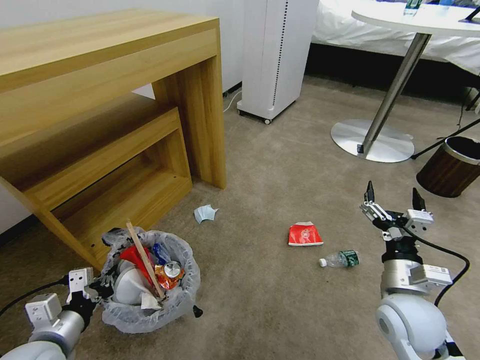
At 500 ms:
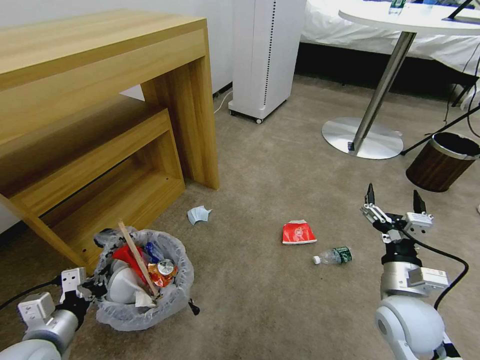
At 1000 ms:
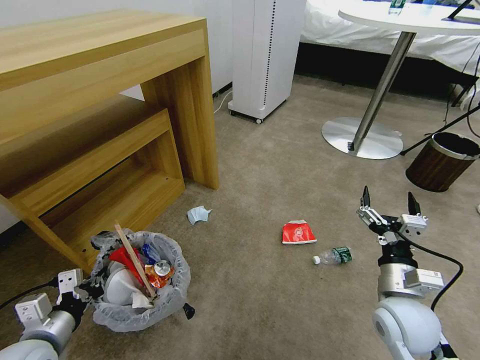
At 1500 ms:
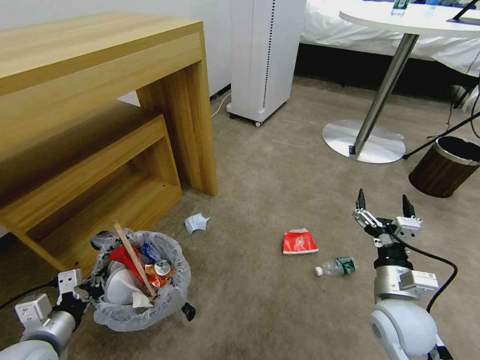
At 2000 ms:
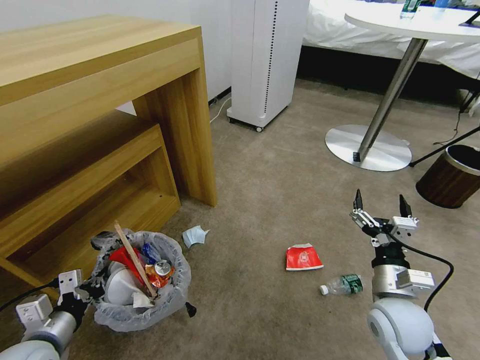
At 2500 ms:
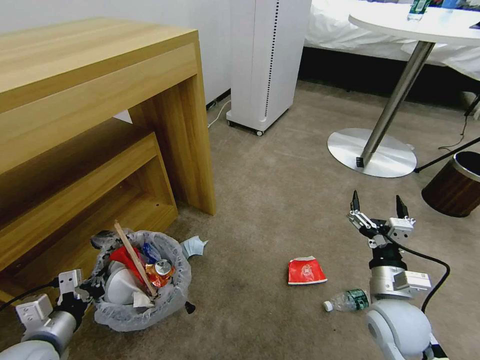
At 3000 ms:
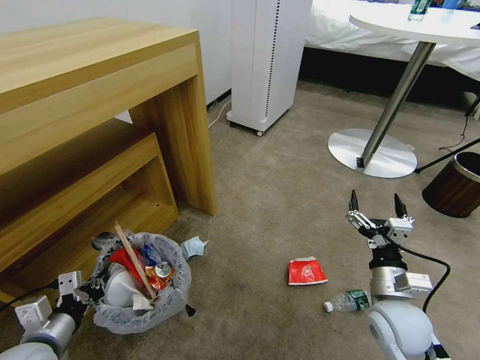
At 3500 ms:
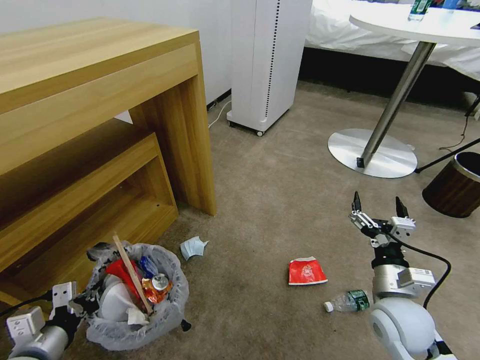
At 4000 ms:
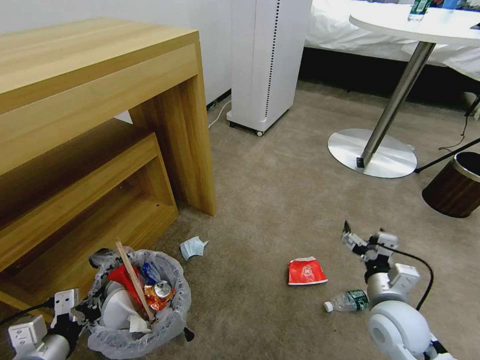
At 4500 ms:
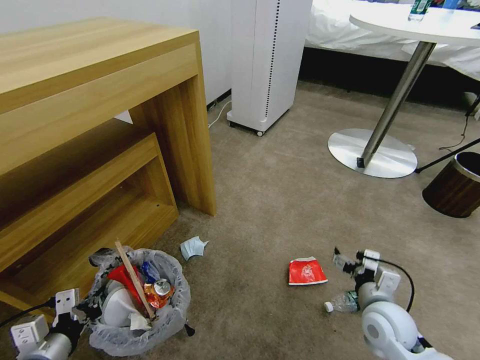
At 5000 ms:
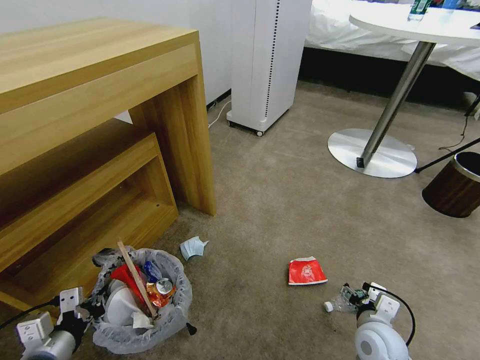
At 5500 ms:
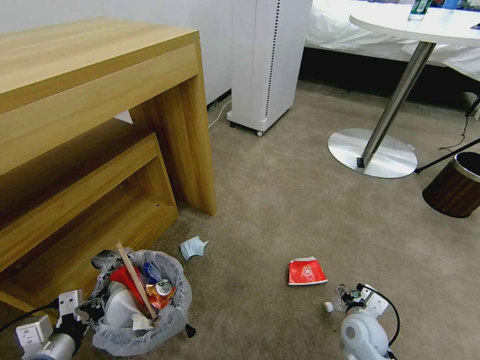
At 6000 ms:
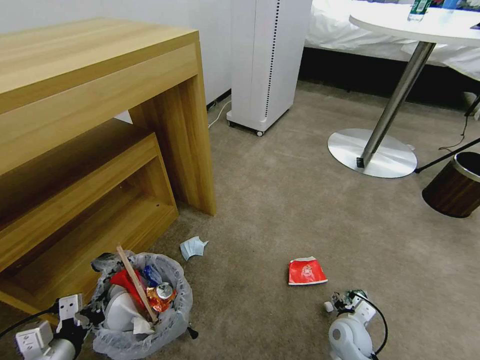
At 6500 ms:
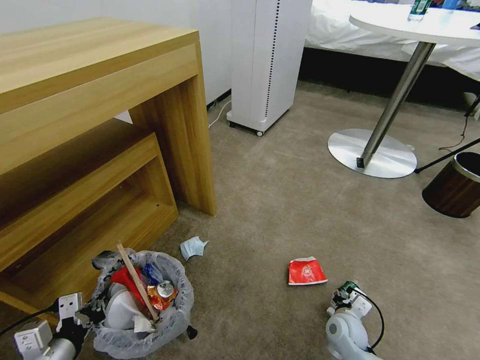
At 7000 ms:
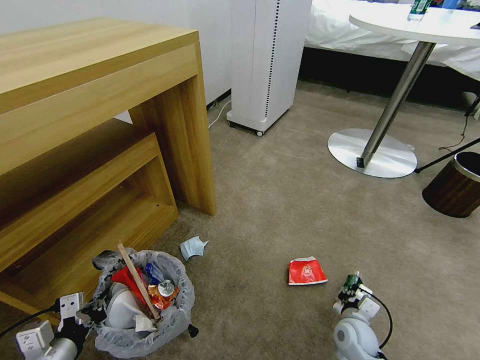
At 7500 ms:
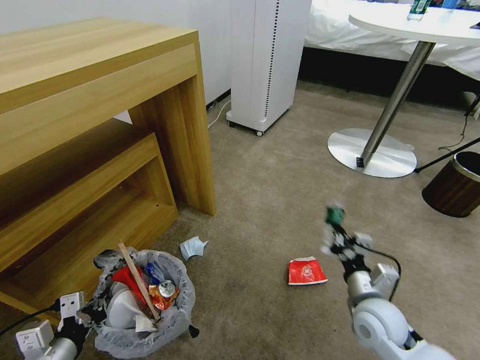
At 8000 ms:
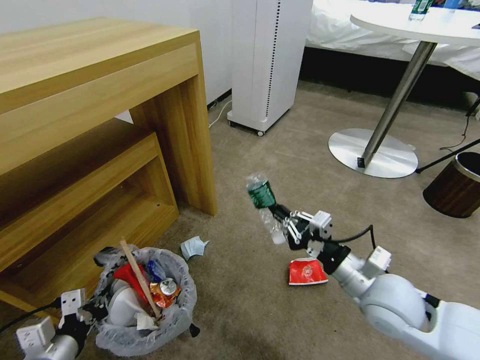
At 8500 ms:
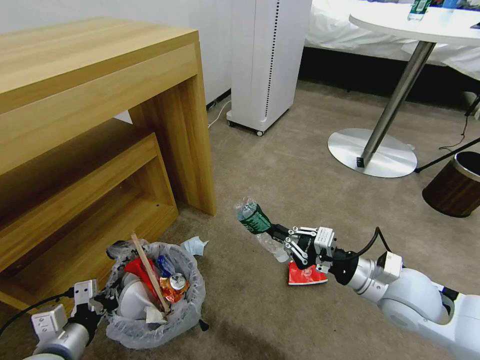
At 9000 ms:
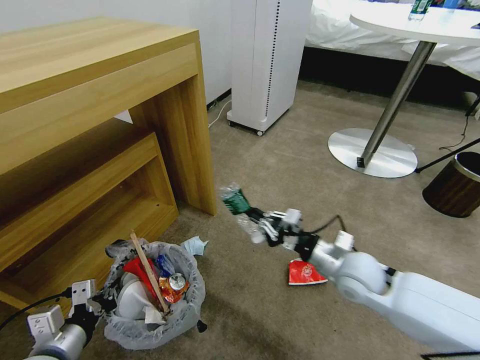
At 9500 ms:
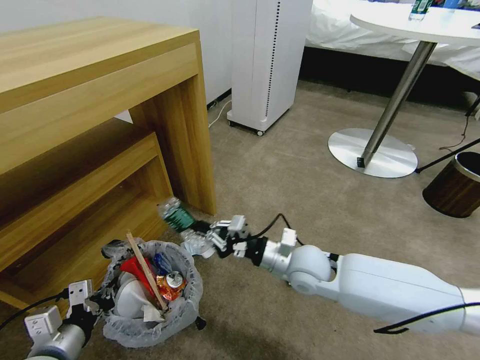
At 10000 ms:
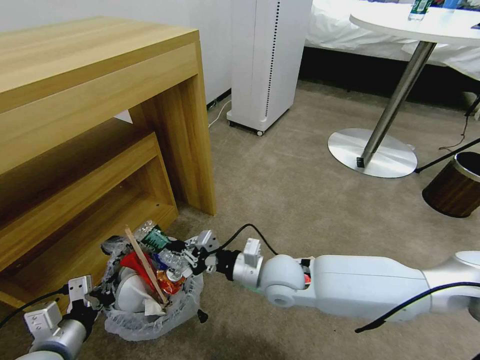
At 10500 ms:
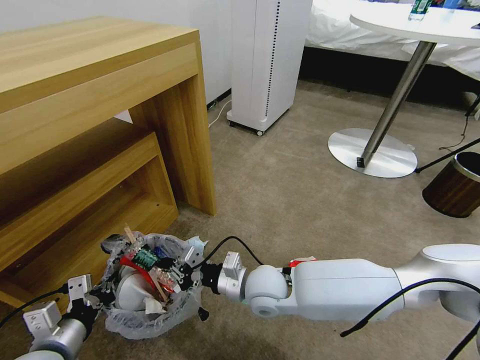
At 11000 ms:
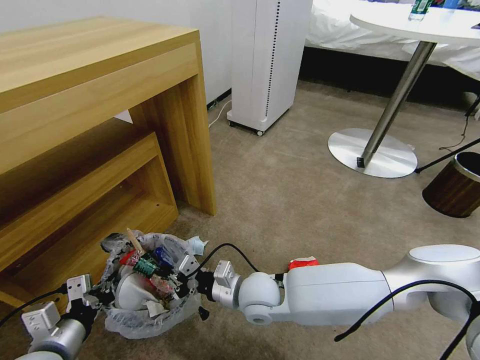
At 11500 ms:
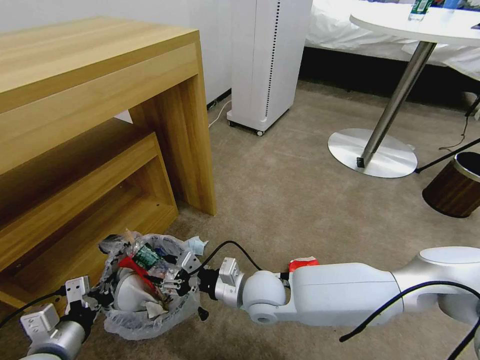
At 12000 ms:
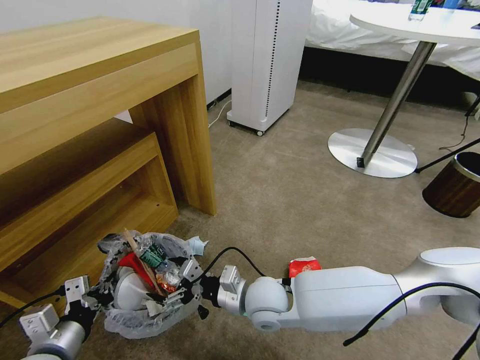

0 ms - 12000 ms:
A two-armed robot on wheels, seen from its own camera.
Task of the whole recording: Pick up the trash bin and place the garbage on the floor into it.
4000 ms - 6000 ms: The right gripper heads downward, covering some 15 cm.
6000 ms - 8000 ms: The right gripper is displaced upward by approximately 25 cm, and closes its fingers.
8000 ms - 10000 ms: The right gripper shifts about 15 cm to the left.
10000 ms - 12000 ms: The right gripper changes place by some 5 cm, and opens its fingers.

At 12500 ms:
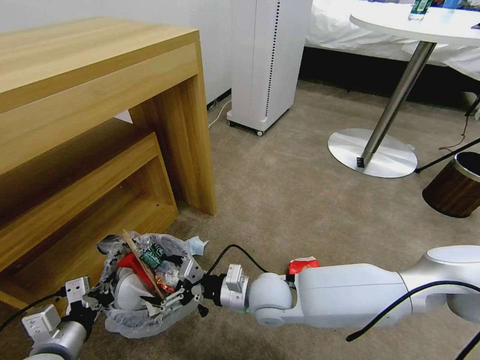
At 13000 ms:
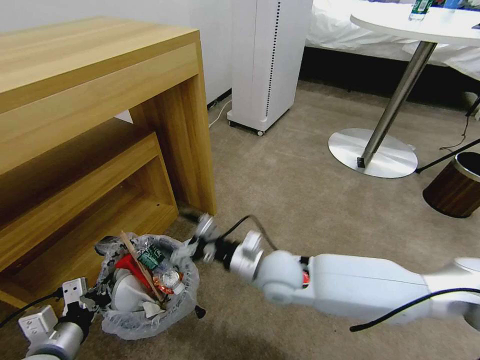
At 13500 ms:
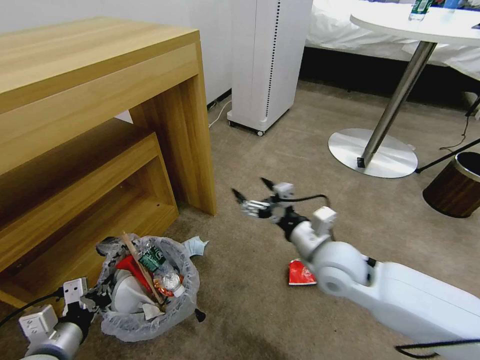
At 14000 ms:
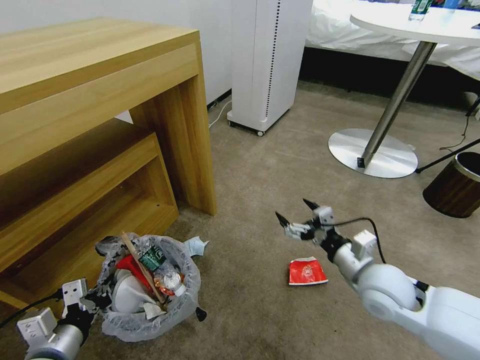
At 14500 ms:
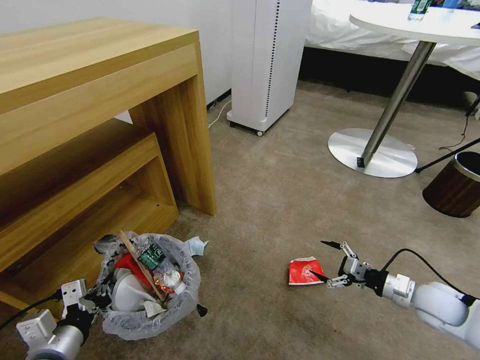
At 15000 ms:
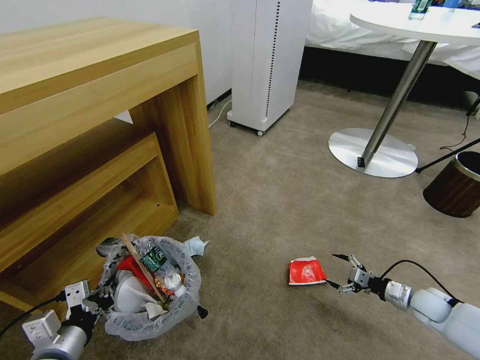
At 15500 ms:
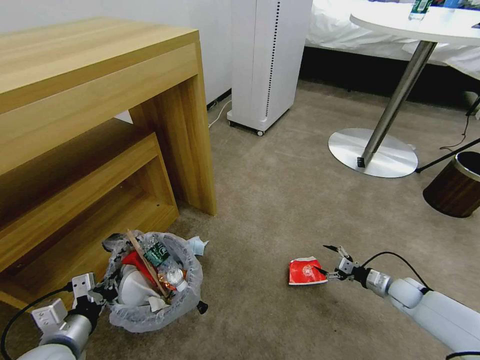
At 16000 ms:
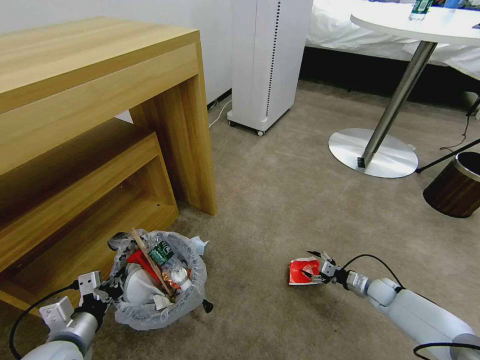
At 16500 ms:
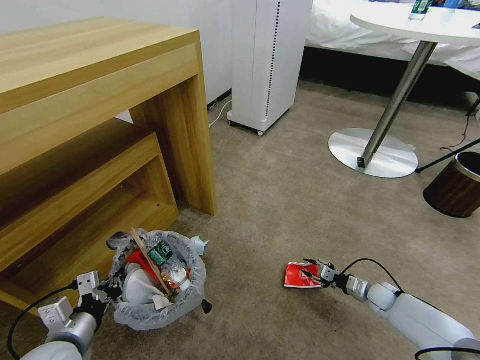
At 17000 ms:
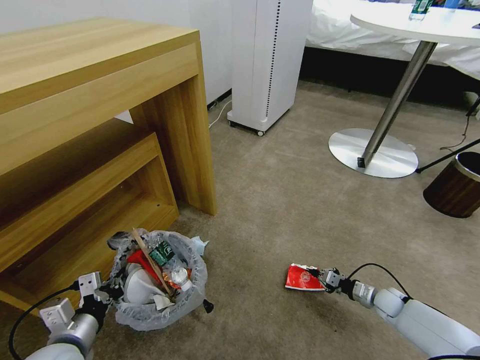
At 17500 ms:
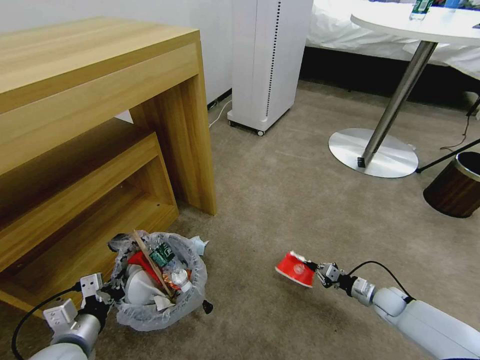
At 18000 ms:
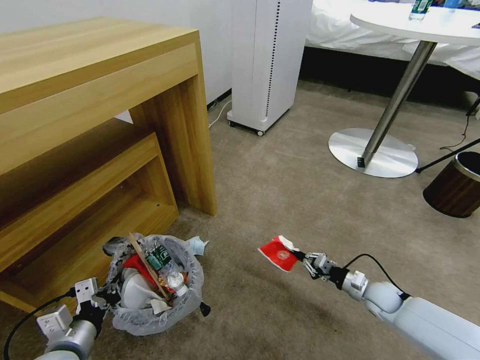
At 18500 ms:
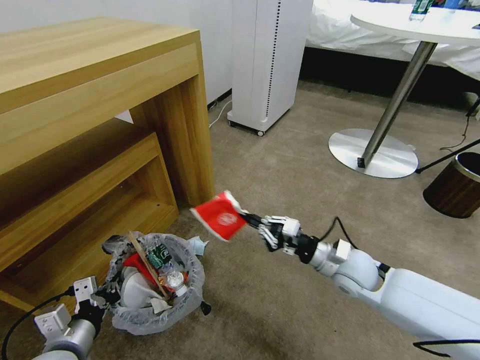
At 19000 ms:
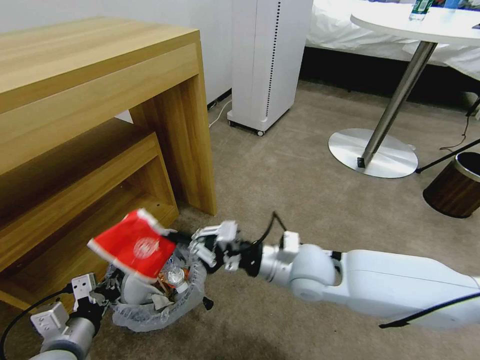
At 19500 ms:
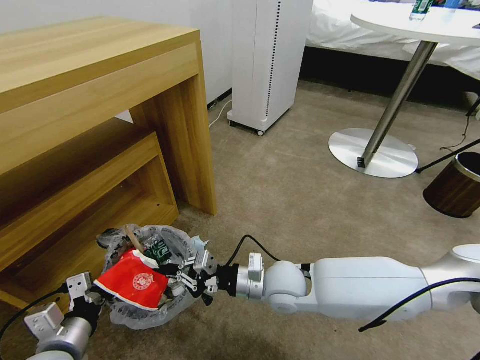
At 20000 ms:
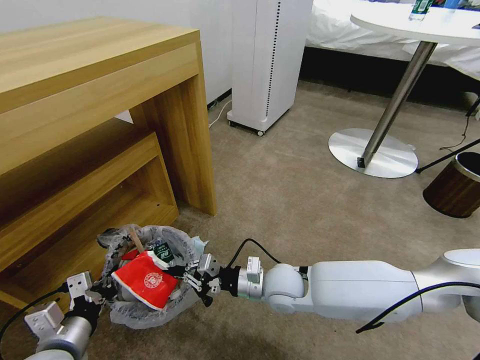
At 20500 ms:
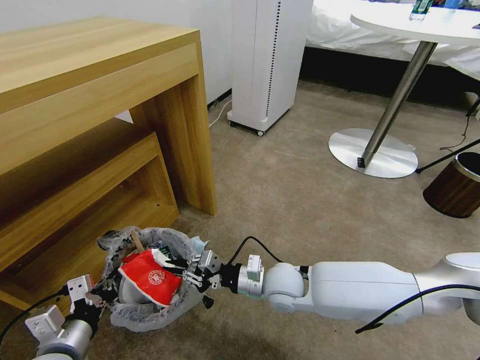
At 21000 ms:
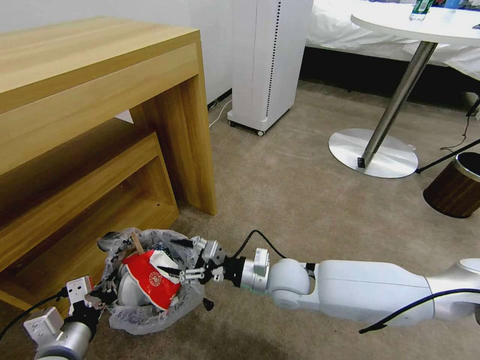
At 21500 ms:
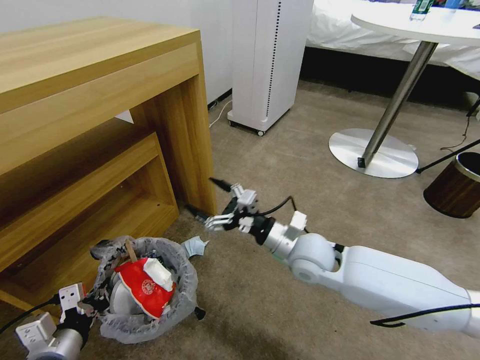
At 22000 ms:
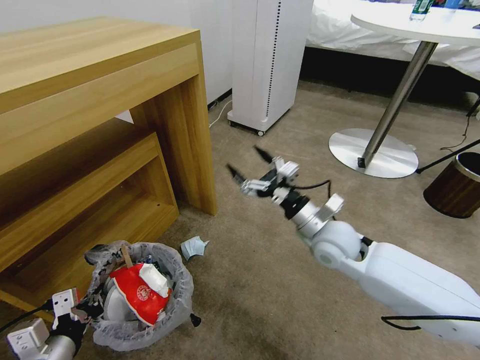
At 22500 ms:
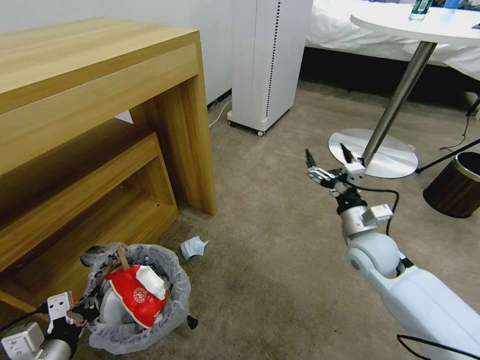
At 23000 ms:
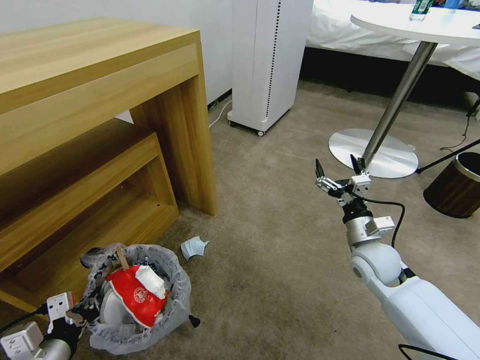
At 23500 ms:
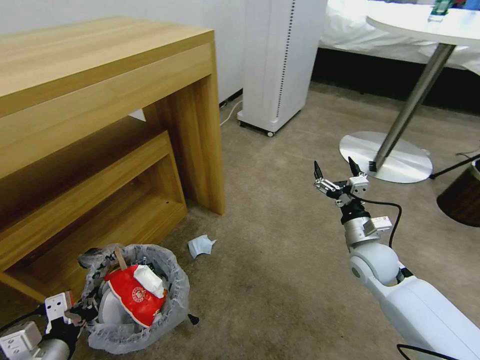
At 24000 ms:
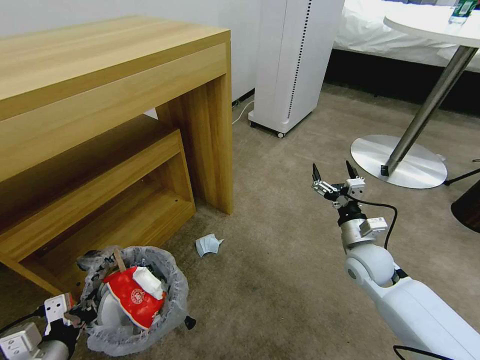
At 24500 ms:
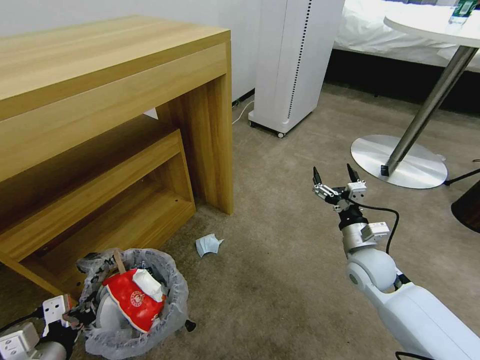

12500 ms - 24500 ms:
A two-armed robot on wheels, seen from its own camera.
Task of the whole recording: Pick up the trash bin and place the garbage on the floor into it.
12500 ms - 14500 ms: The right gripper heads to the right, covering some 40 cm.
14500 ms - 16500 ms: The right gripper is displaced downward and forward by roughly 20 cm, and closes.
16500 ms - 18500 ms: The right gripper shifts some 30 cm upward and to the left, and closes up.
18500 ms - 20500 ms: The right gripper heads to the left, covering about 15 cm.
20500 ms - 22500 ms: The right gripper shifts some 20 cm to the right, and opens.

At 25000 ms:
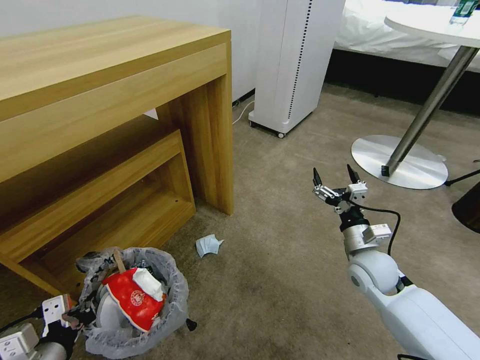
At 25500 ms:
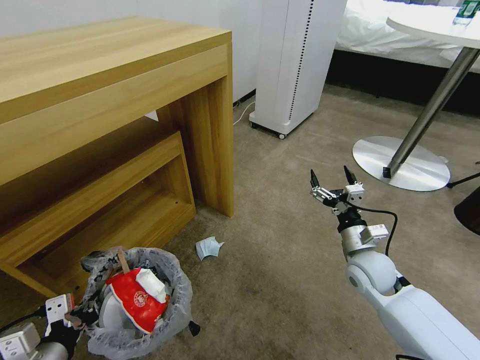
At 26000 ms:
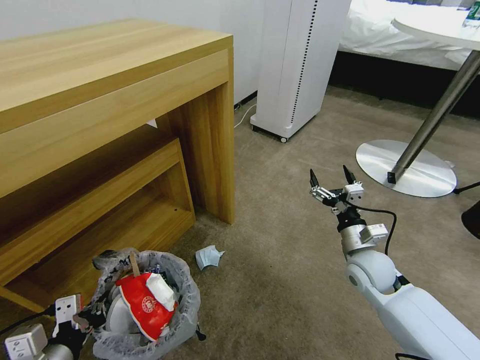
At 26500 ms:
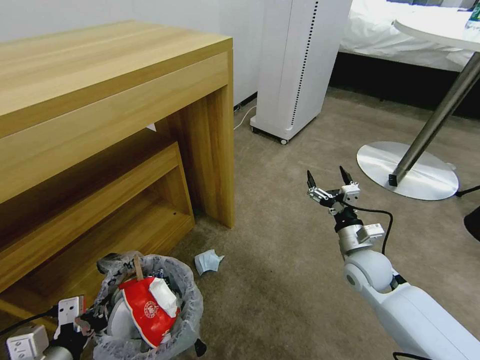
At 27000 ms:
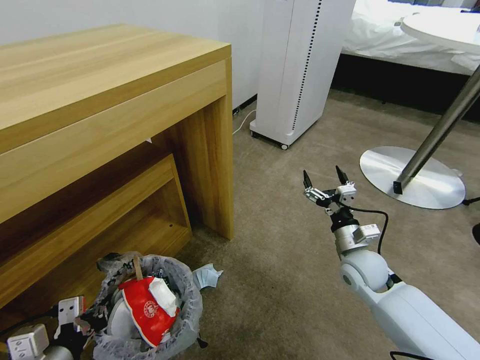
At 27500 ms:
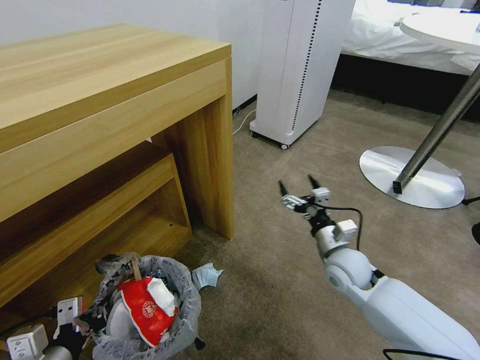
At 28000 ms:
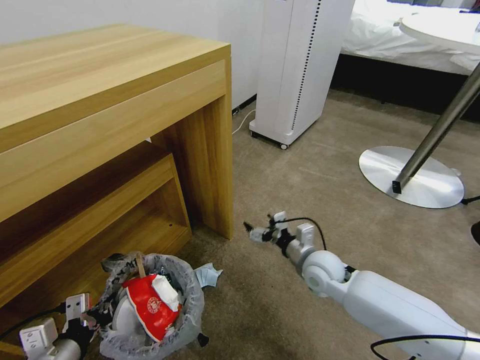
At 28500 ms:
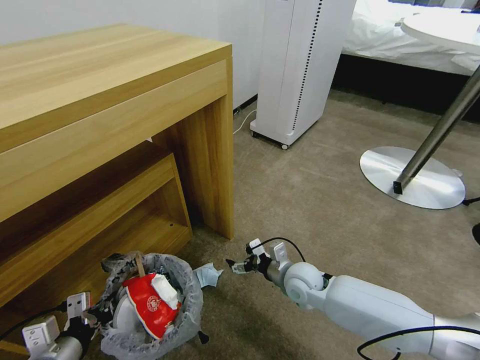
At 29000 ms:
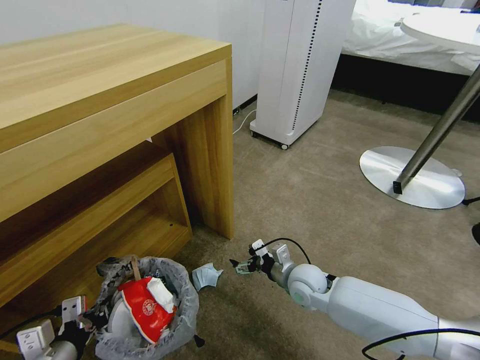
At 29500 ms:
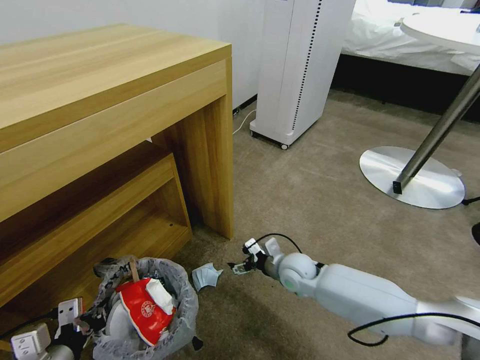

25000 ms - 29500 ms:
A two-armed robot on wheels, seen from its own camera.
Task of the whole recording: Pick up the trash bin and place the garbage on the floor into it.
27000 ms - 29500 ms: The right gripper heads to the left and downward, covering approximately 15 cm.
